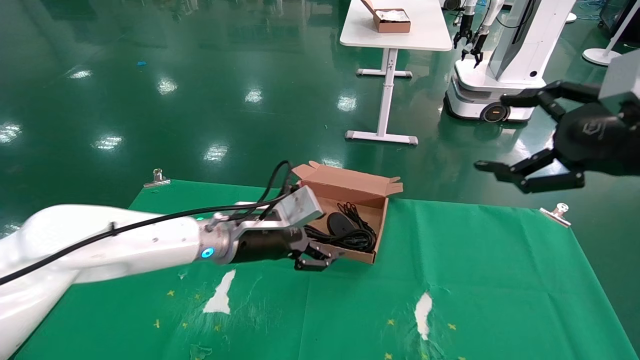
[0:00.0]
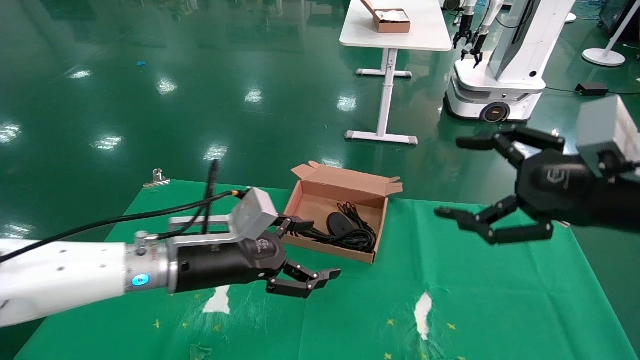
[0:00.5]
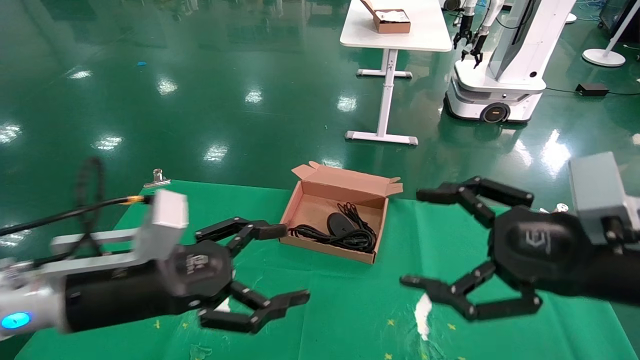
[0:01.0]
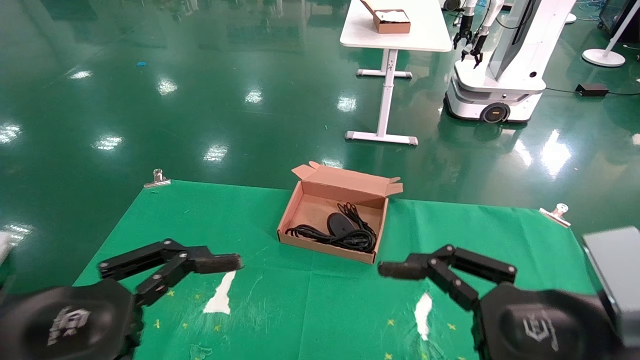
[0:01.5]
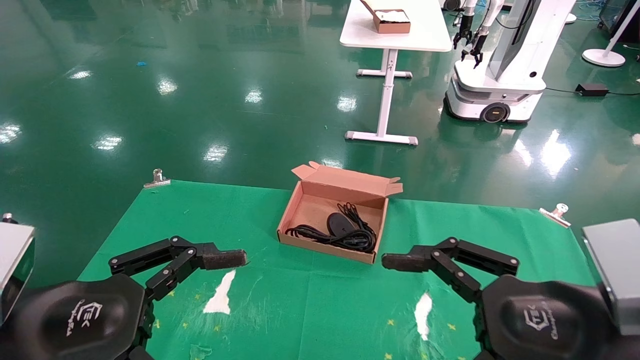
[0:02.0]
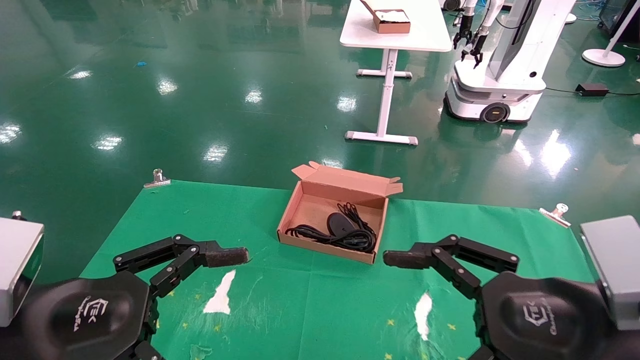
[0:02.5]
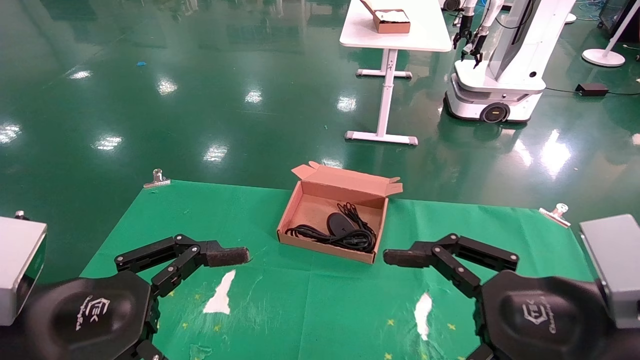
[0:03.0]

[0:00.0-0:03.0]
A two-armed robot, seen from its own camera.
0:00.0 to 0:01.5: The left gripper goes some 25 cm backward and to the left, and opens its fingers, while the right gripper heads downward, to the left and backward, covering approximately 20 cm.
0:01.5 to 0:03.0: The two grippers keep their place.
